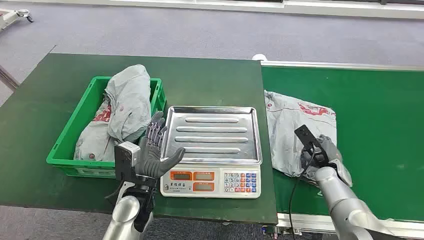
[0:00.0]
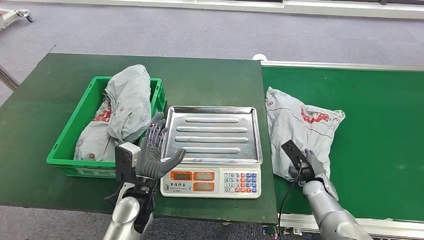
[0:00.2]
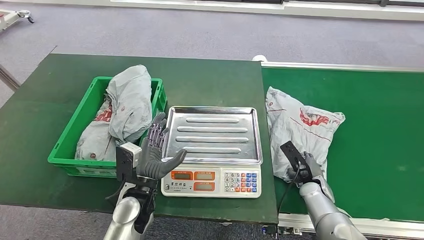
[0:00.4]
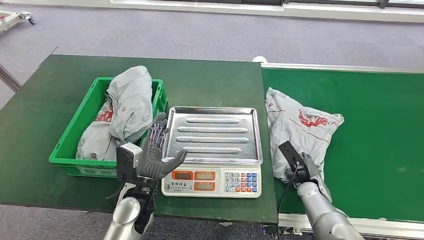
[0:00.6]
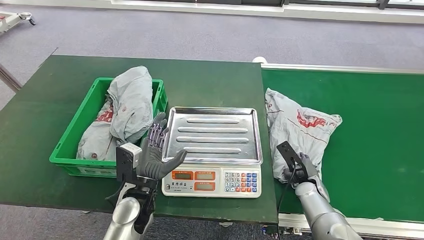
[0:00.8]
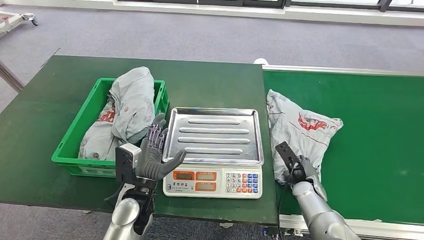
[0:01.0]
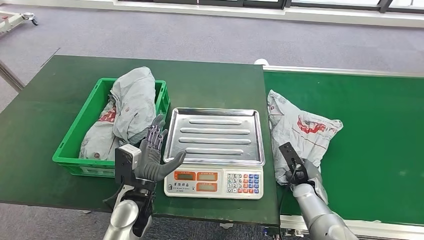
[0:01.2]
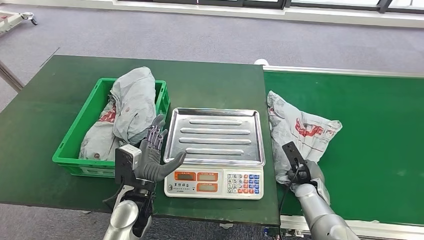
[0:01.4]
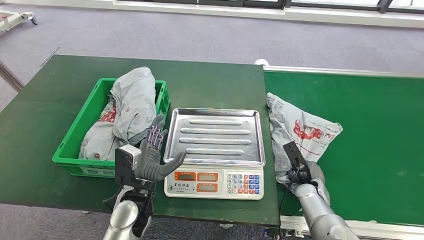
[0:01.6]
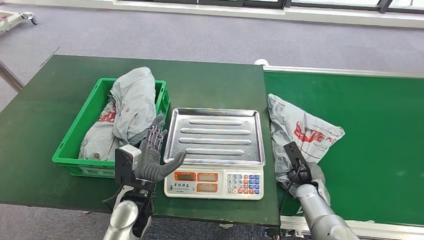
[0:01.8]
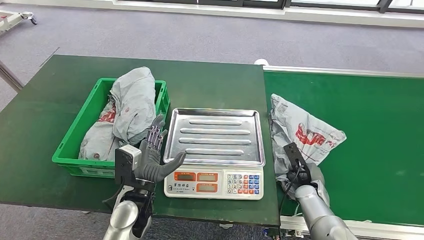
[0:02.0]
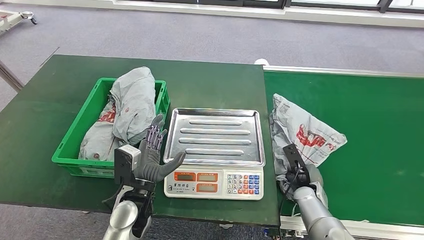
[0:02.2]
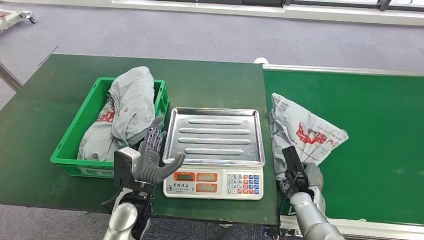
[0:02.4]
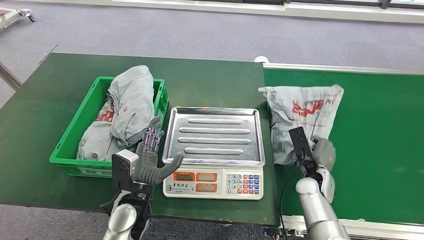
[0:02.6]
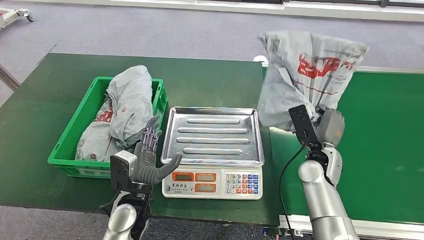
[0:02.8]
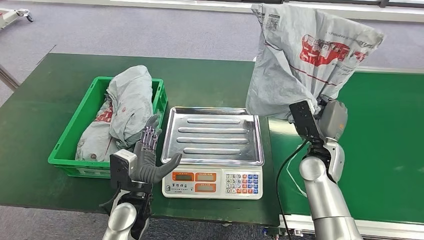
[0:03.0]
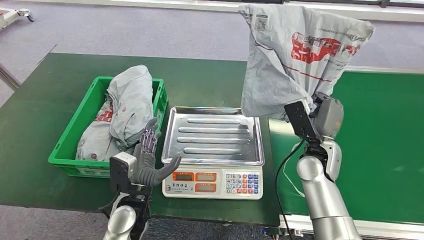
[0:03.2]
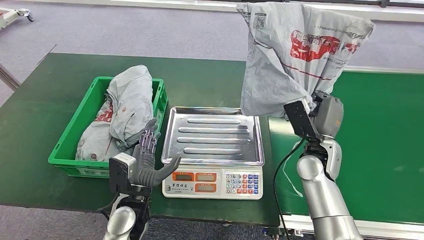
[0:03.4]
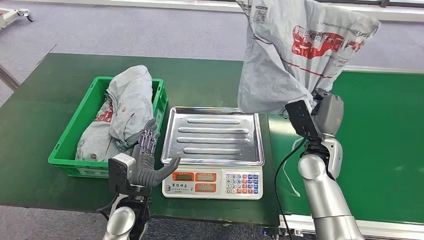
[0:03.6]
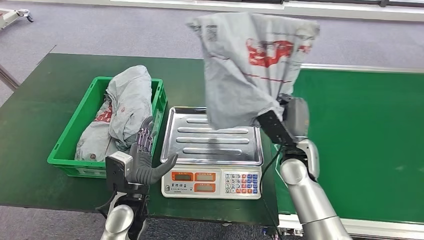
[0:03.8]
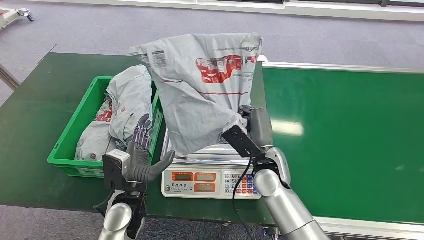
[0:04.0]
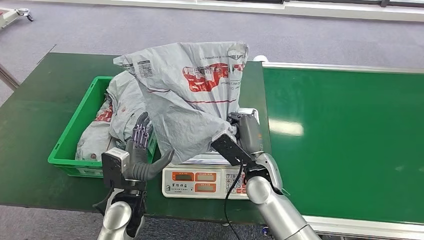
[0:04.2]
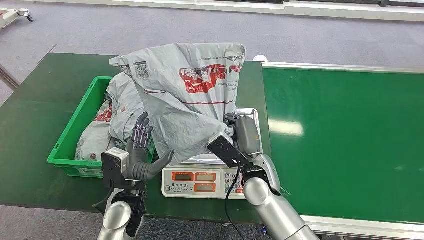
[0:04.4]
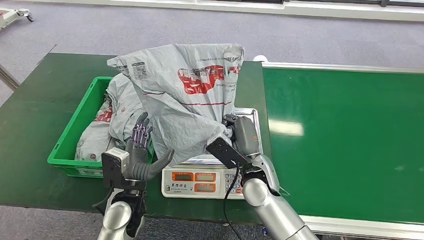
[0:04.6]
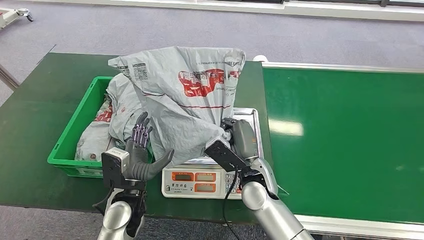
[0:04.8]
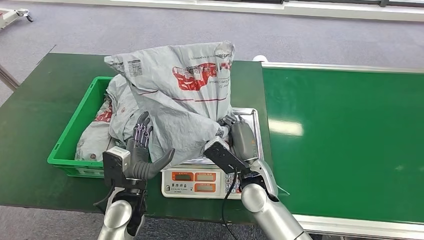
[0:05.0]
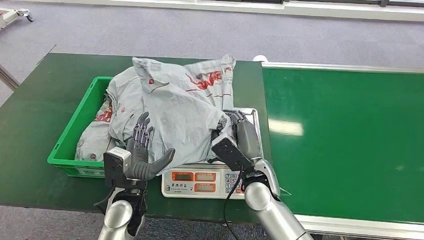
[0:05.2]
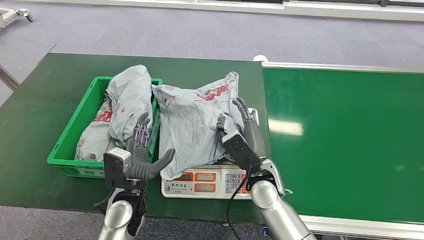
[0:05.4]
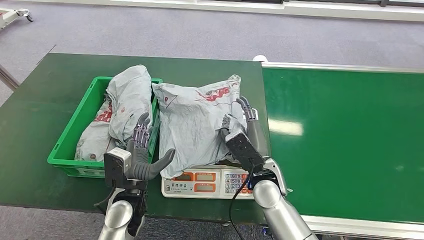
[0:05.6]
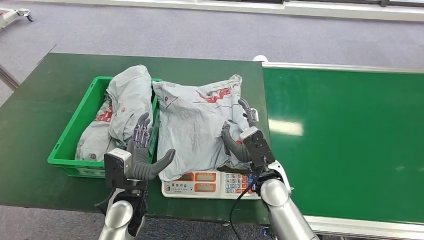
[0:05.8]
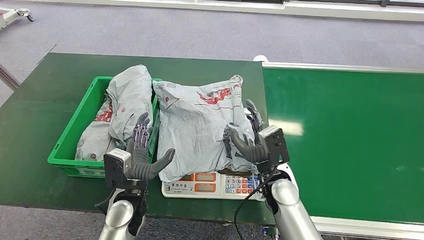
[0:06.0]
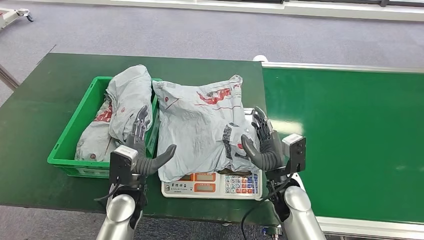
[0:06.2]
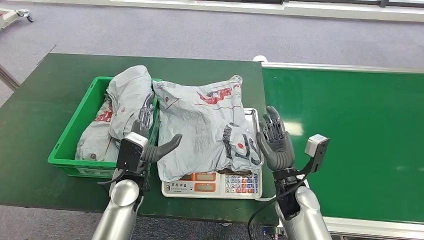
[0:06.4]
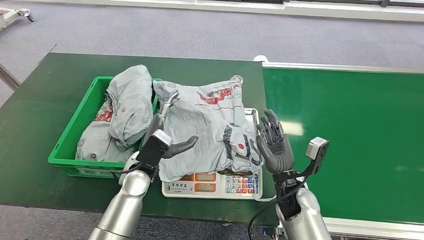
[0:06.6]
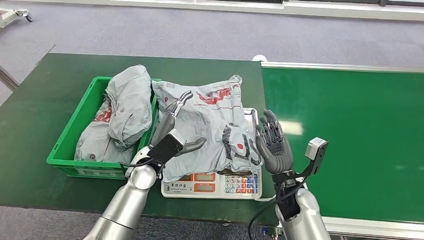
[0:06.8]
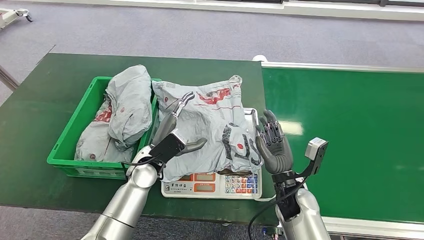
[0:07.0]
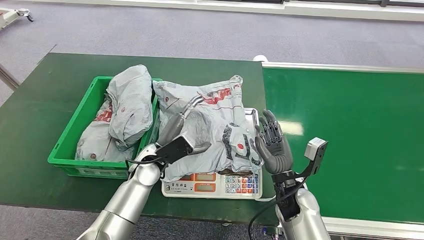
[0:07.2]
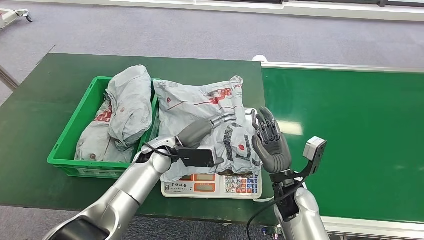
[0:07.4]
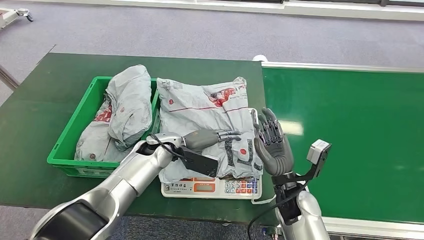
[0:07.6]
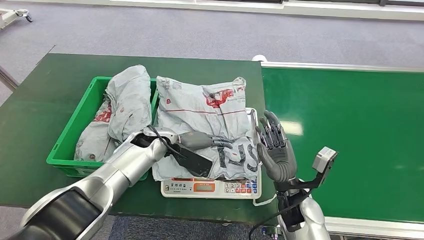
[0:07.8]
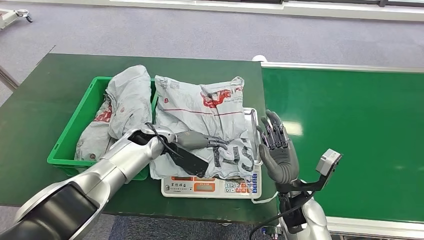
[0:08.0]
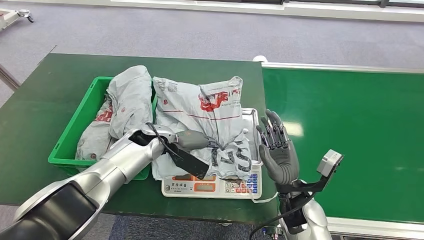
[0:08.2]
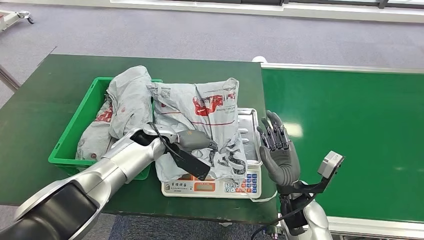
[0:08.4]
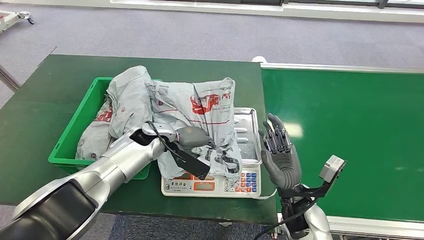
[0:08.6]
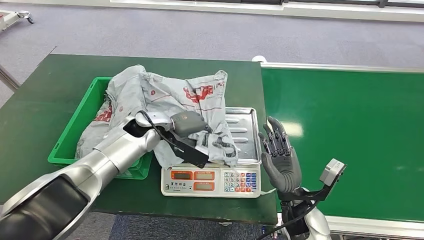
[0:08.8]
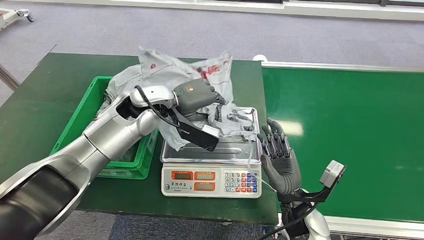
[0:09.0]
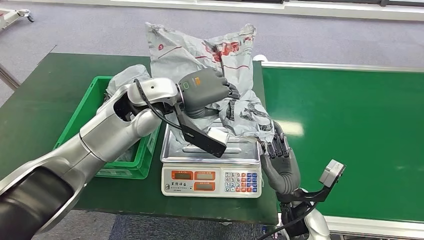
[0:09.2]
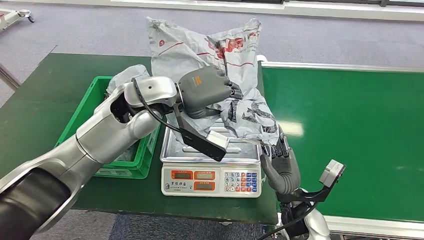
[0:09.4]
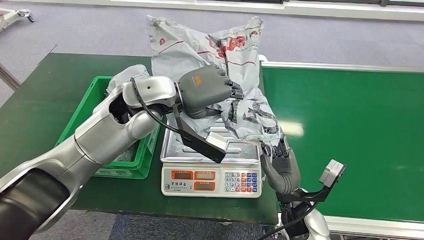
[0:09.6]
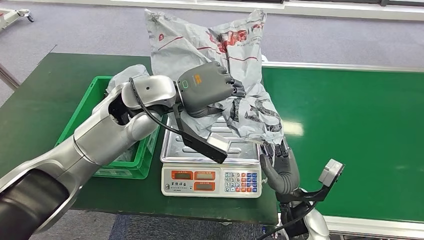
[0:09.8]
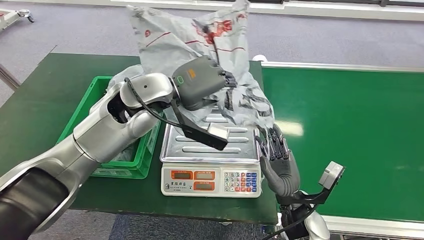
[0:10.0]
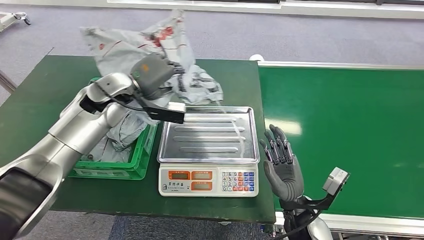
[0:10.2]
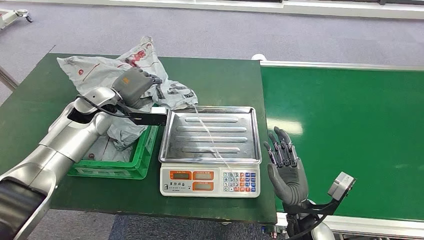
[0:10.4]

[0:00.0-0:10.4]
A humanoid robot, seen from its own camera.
Step, 0:00.0 to 0:03.0: Pick up the package from the conveyor belt.
Step, 0:03.2 to 0:06.4: Place the package onto the inbound machine.
Step, 0:06.8 to 0:09.6: Pick up the package from the inbound machine.
0:06.0 to 0:07.4: The left hand heads forward, covering about 15 cm.

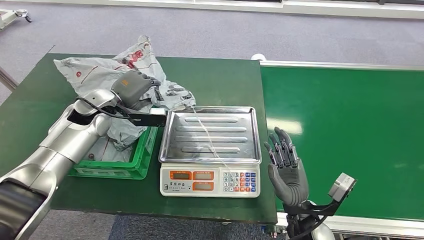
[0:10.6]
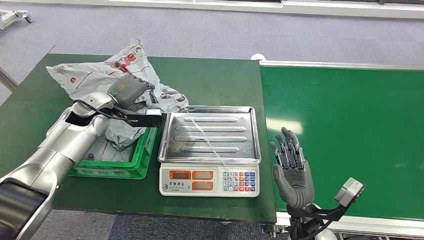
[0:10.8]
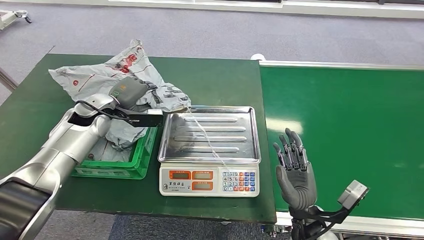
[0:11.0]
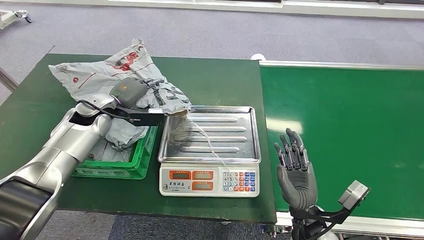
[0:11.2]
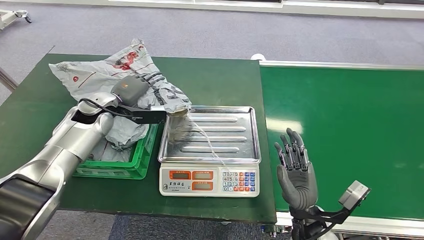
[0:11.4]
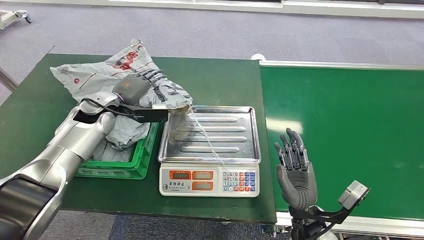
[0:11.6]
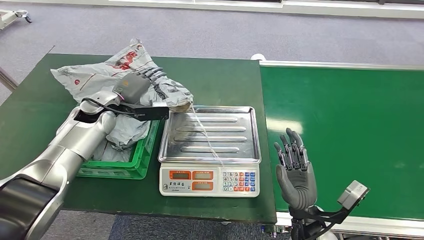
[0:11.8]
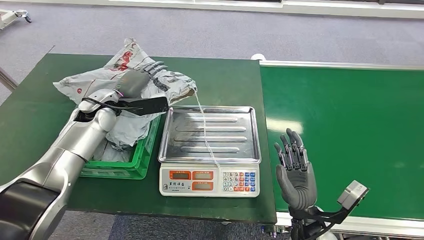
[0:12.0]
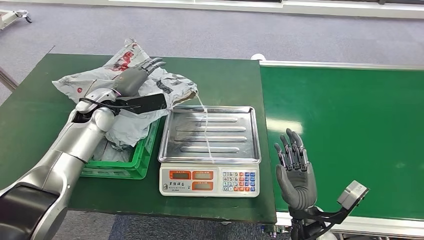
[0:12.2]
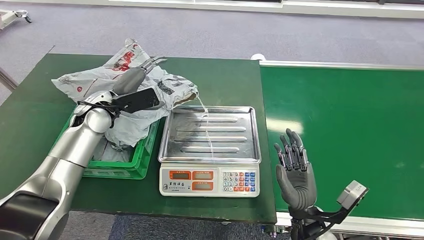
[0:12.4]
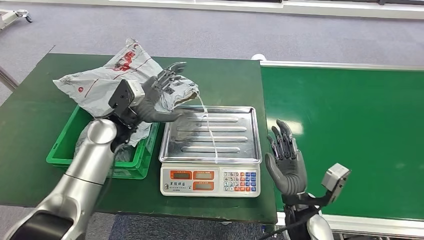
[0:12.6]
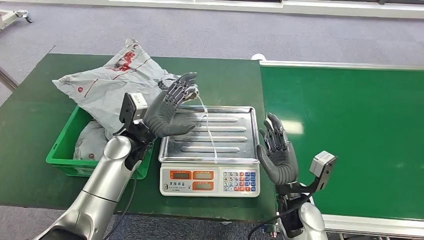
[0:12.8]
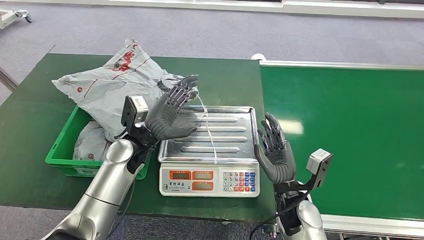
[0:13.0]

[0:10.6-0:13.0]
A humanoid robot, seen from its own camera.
Step, 0:10.6 to 0:13.0: Place the package into the parcel locker.
0:10.6 to 0:11.8: The hands make only small movements.
